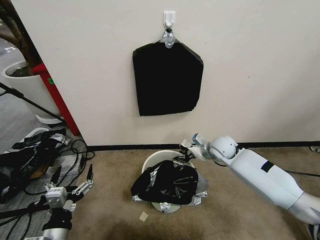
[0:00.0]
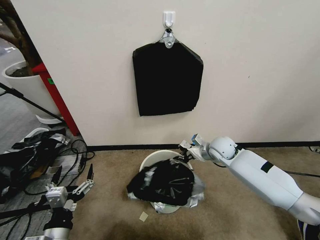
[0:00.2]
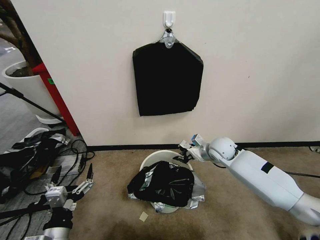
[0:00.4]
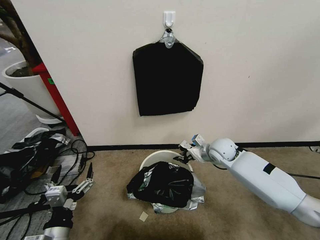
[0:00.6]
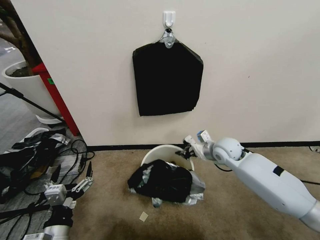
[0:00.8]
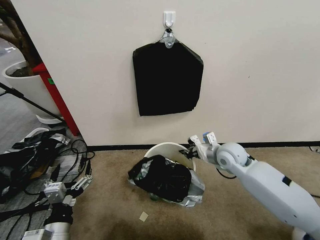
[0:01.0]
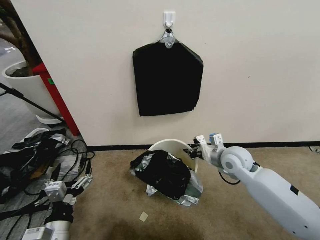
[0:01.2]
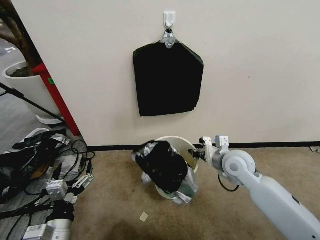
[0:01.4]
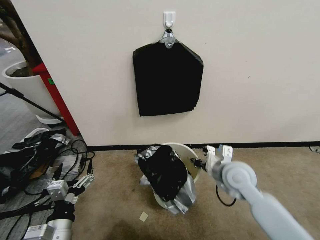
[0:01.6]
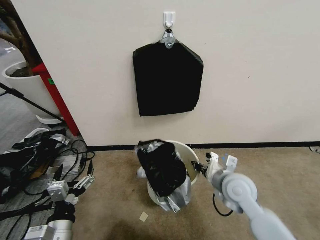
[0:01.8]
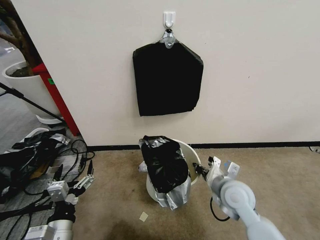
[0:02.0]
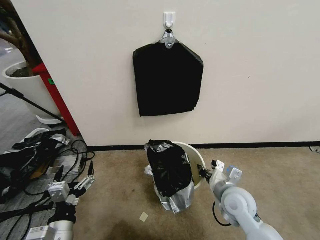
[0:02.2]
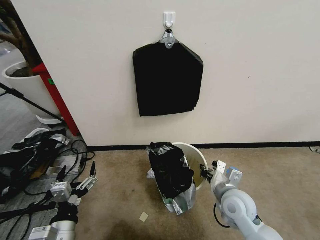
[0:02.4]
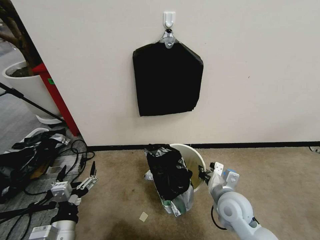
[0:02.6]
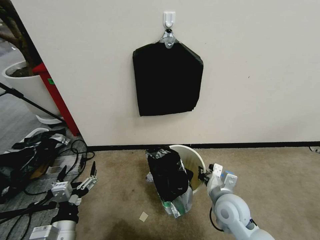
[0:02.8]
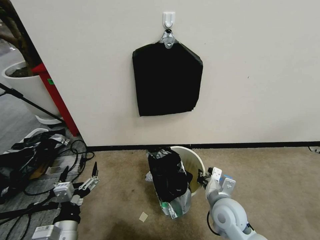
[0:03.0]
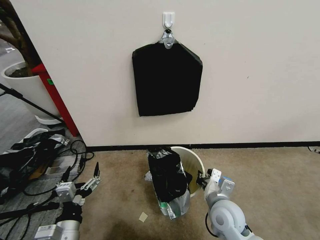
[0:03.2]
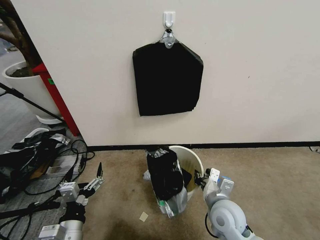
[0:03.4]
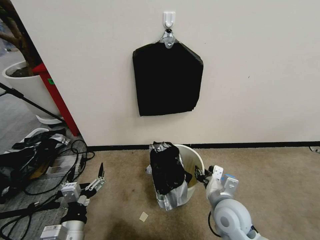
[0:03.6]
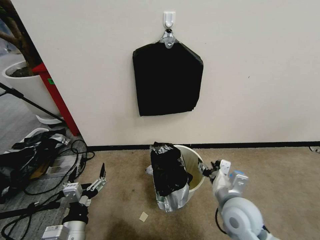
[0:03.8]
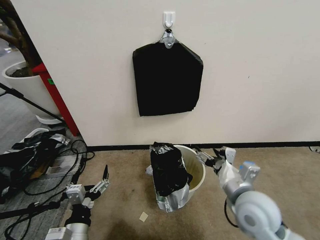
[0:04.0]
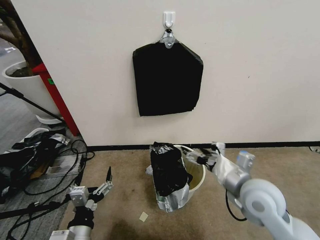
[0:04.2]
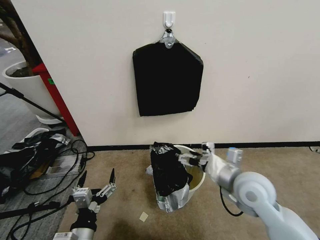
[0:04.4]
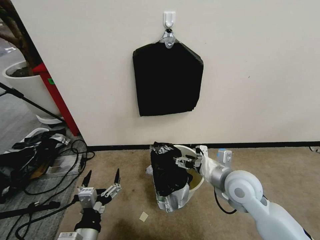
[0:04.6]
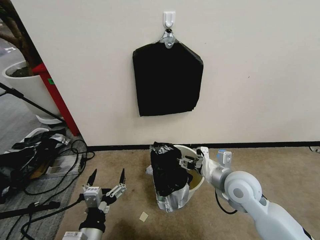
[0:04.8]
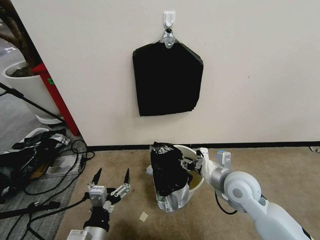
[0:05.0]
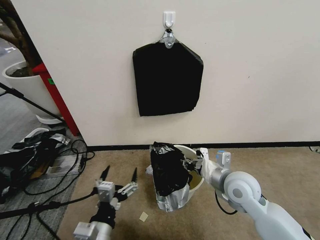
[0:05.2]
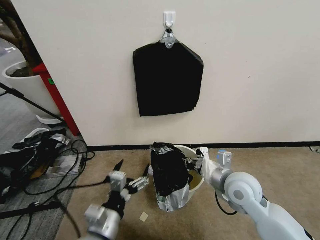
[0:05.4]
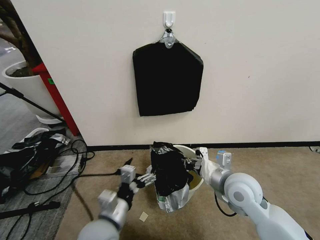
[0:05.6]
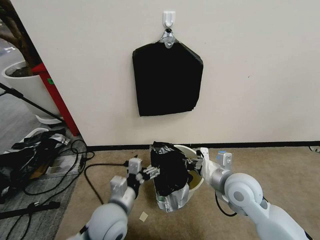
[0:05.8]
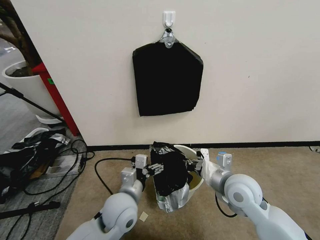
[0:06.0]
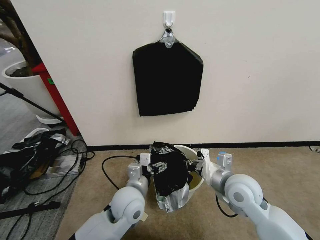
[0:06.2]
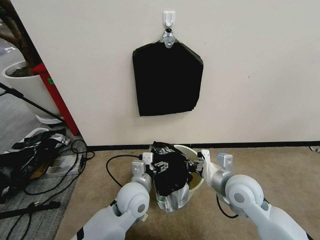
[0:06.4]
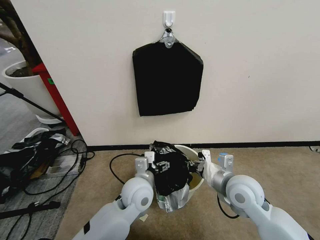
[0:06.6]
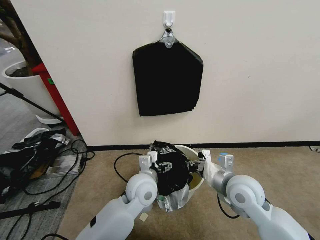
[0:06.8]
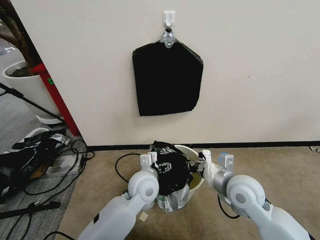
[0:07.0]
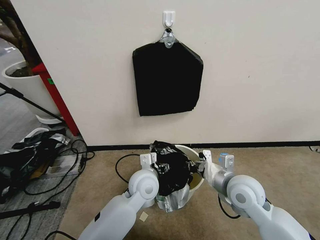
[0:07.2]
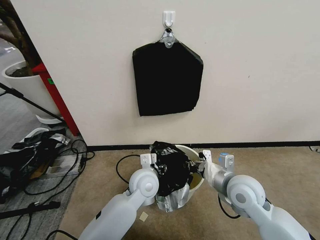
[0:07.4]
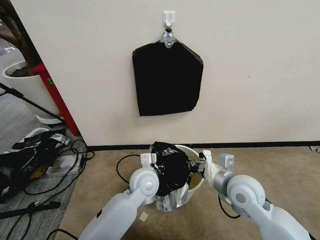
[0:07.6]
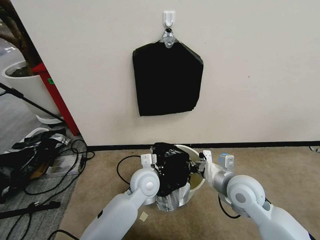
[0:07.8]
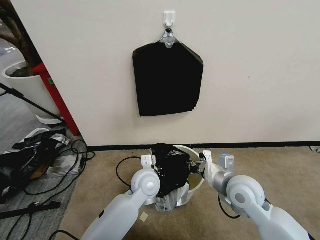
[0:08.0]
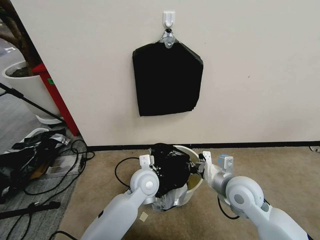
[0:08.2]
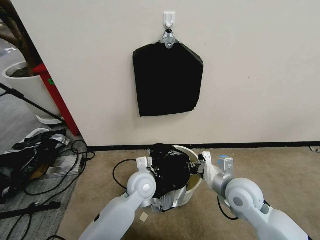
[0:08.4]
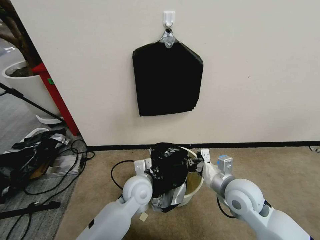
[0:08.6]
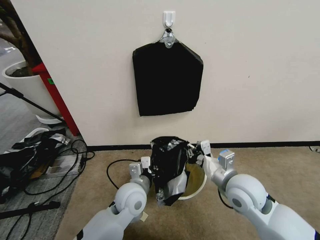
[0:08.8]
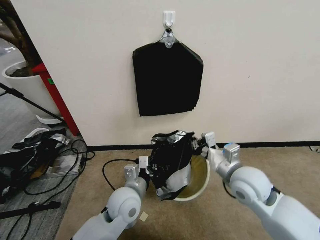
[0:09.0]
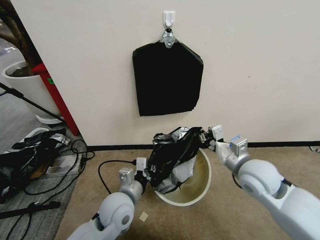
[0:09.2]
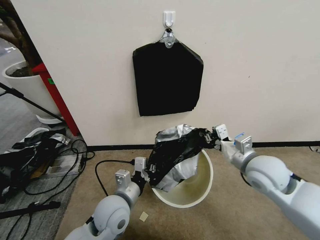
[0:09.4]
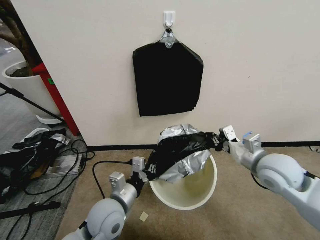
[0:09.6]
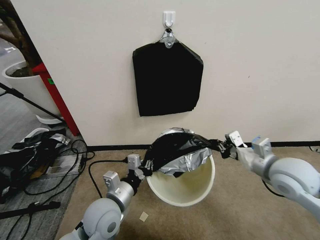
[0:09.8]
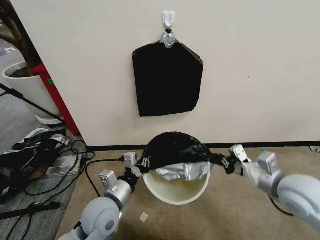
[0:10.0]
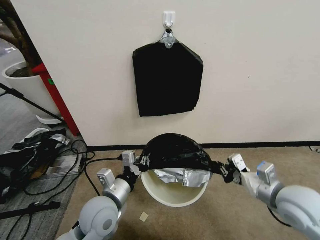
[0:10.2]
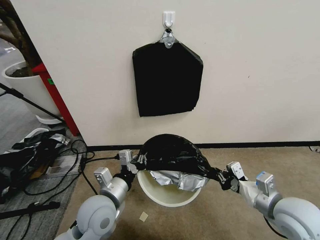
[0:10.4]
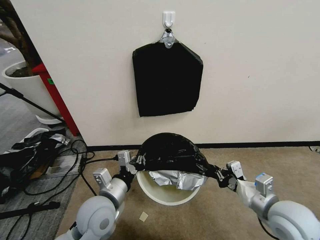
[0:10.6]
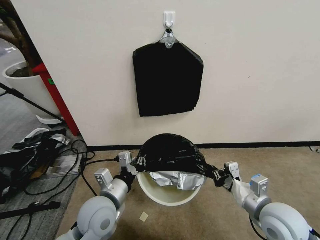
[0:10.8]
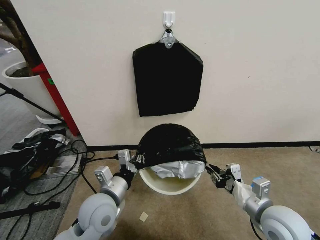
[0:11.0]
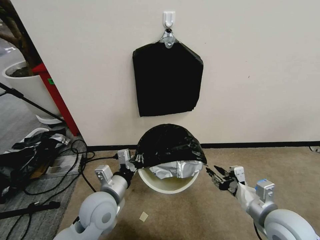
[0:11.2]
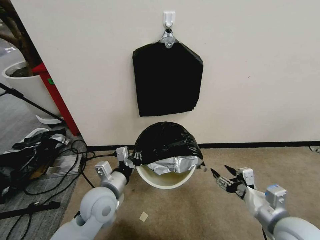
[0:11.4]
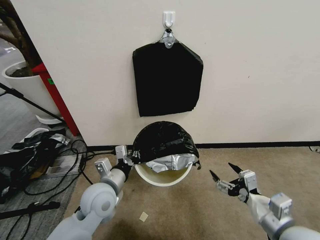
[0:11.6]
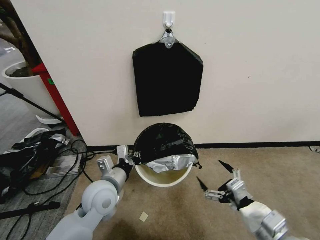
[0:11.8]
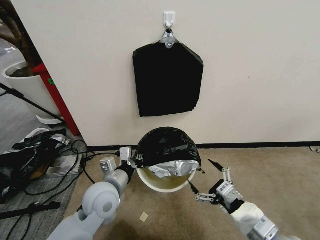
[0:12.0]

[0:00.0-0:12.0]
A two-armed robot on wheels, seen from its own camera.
Task of the whole recording: Place a trash bag onto the trash bin.
0.0 to 1.6 s: The right gripper is displaced backward by about 15 cm.
1.6 to 3.0 s: The right gripper heads downward and backward, covering about 10 cm.
3.0 to 4.4 s: The right gripper travels upward by some 10 cm, and opens.
4.4 to 6.0 s: The left gripper travels forward and to the right by approximately 20 cm. The right gripper closes.
6.0 to 7.6 s: The left gripper is displaced forward and to the right by approximately 10 cm, and closes its fingers.
7.6 to 9.0 s: The left gripper shifts roughly 10 cm backward and to the left, and closes its fingers.
9.0 to 10.4 s: The left gripper travels to the left by approximately 5 cm. Meanwhile the right gripper travels to the right and backward by approximately 10 cm.
10.4 to 12.0 s: The right gripper travels backward and to the left by approximately 10 cm, and opens its fingers.

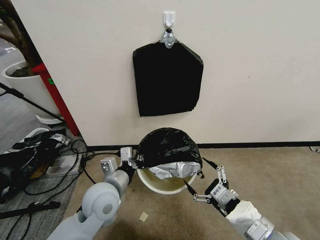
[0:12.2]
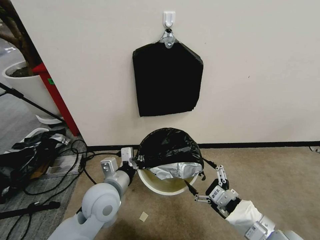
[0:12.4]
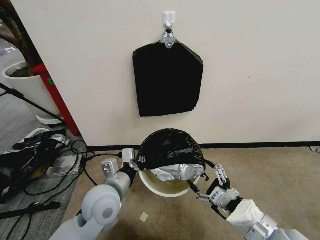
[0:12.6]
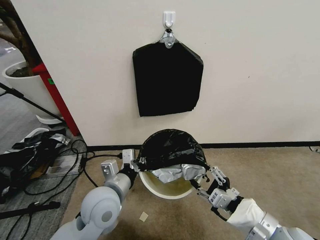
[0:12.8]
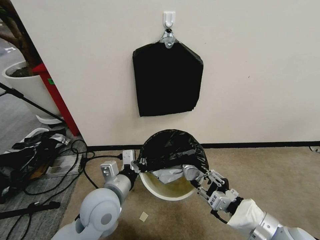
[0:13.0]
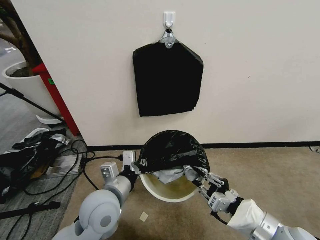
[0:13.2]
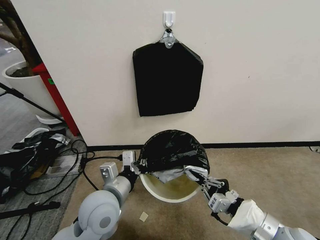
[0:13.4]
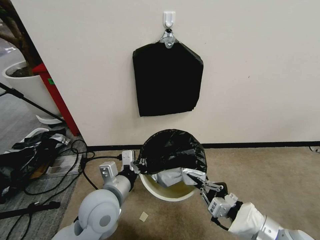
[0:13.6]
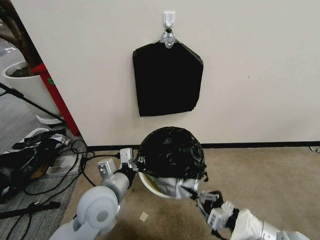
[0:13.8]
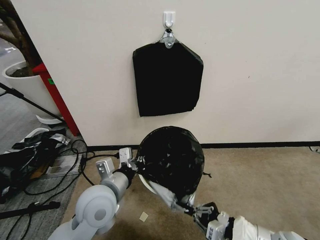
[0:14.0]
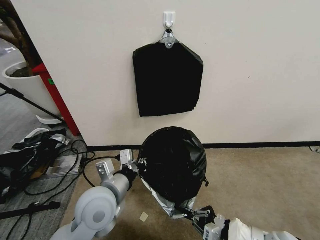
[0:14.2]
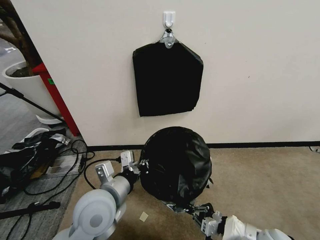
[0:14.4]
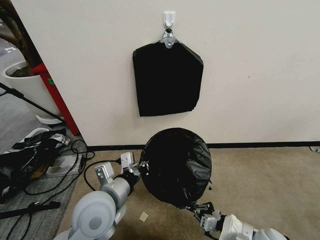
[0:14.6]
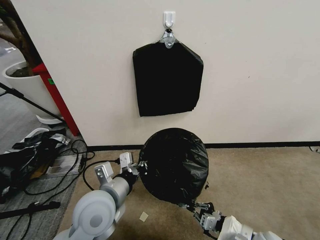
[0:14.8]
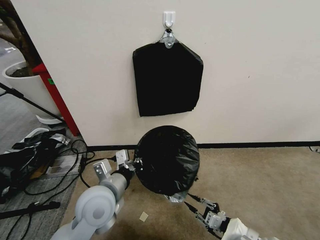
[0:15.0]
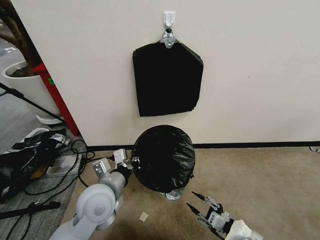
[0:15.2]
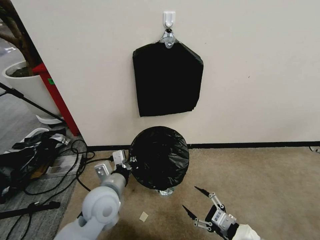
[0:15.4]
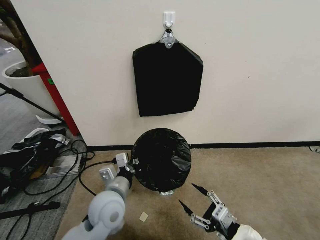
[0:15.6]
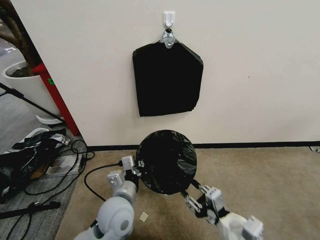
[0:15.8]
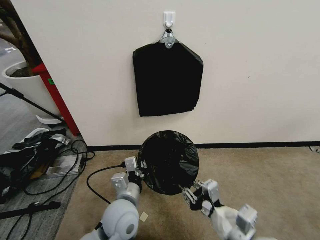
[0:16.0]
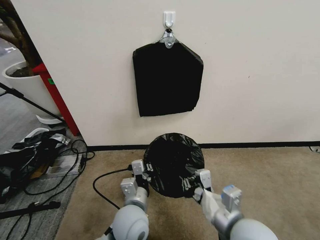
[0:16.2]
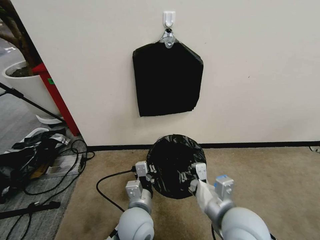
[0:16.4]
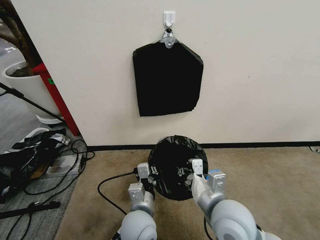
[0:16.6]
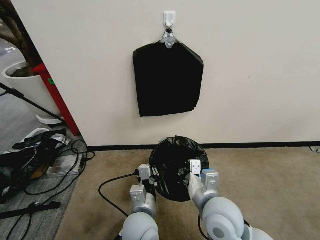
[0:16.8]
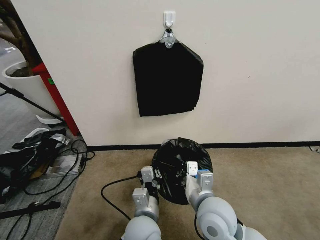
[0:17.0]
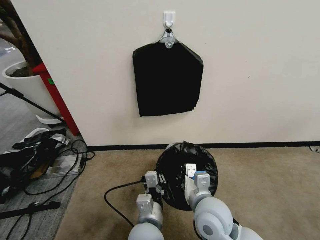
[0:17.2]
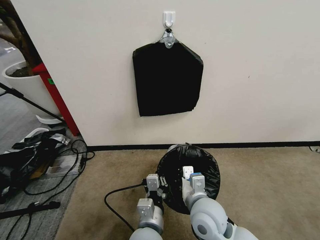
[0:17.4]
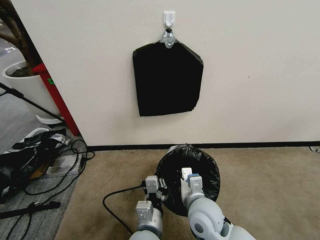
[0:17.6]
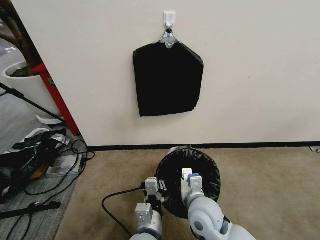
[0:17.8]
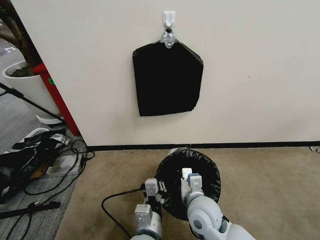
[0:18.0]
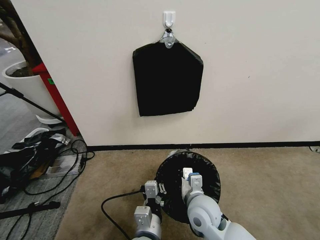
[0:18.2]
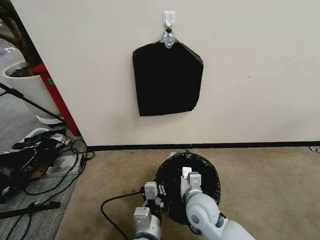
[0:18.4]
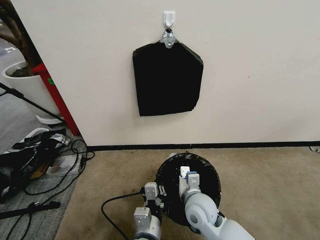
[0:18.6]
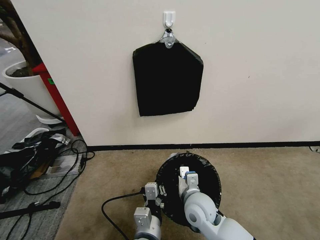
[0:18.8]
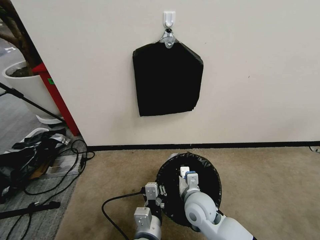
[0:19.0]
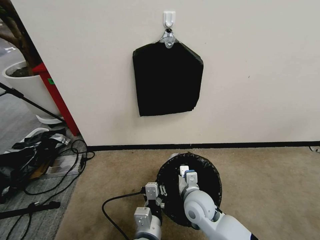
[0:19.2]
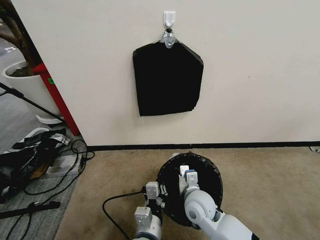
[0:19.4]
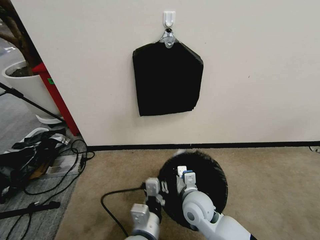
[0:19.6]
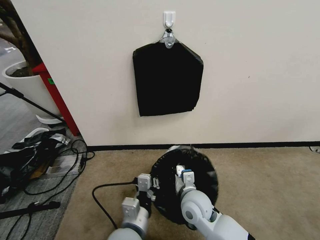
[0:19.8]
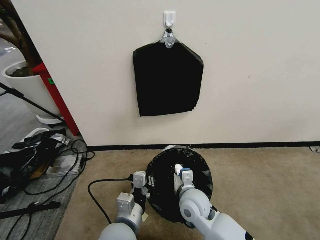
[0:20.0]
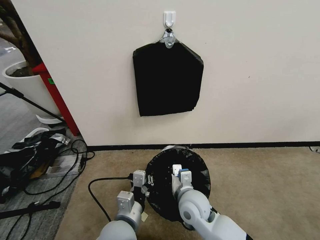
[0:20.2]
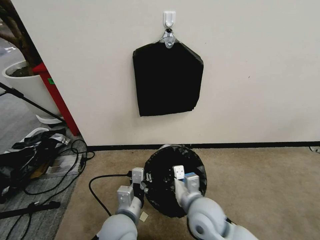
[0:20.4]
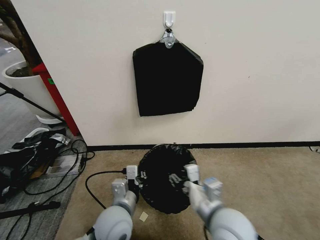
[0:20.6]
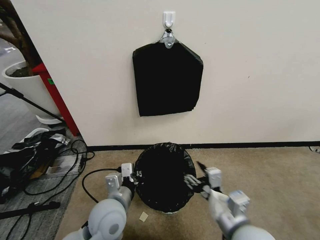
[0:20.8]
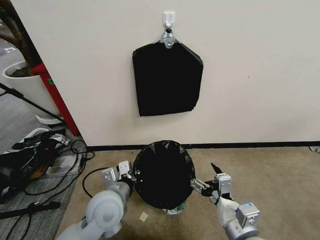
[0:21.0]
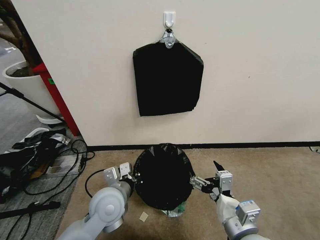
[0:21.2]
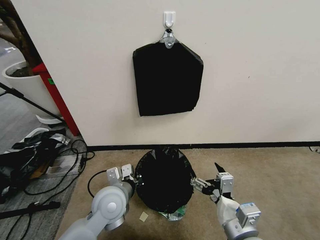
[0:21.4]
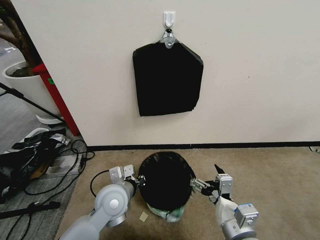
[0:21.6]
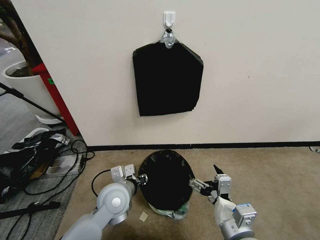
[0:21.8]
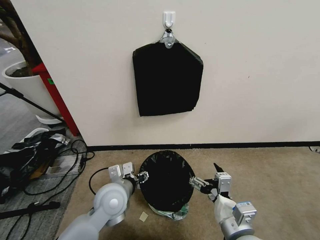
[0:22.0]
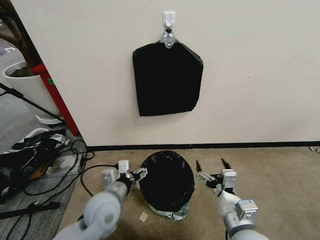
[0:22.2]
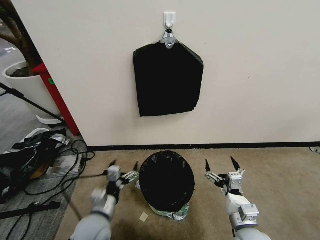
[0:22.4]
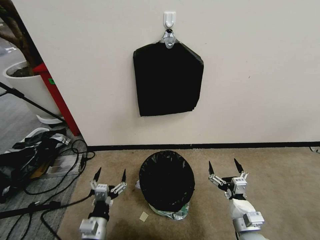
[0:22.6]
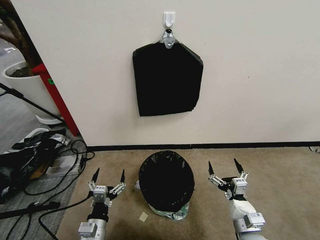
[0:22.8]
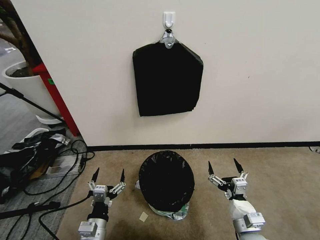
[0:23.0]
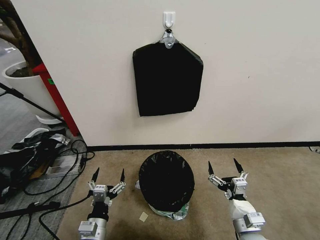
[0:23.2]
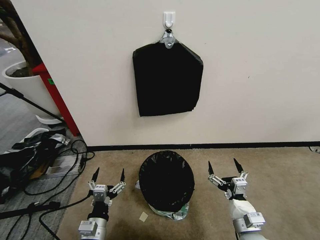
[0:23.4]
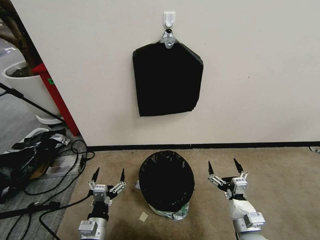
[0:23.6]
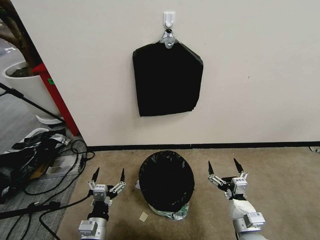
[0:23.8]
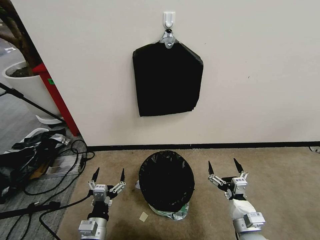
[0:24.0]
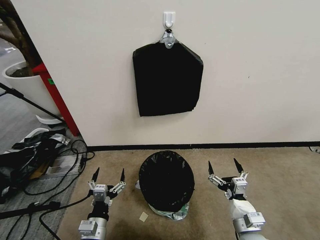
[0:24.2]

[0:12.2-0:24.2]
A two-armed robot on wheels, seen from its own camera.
Task of the whole recording: Place a trash bag onto the trash bin.
12.2 to 13.8 s: The right gripper closes up.
13.8 to 15.2 s: The right gripper moves downward, about 10 cm, and opens its fingers.
15.2 to 16.6 s: The left gripper travels to the right and downward by about 15 cm. The right gripper moves to the left and upward, approximately 20 cm, and closes up.
16.6 to 18.2 s: The left gripper moves backward, some 5 cm. The right gripper heads downward, covering approximately 10 cm.
18.2 to 19.8 s: The left gripper is displaced to the left by some 5 cm.
19.8 to 21.2 s: The right gripper travels backward, to the right and upward by about 20 cm, and opens its fingers. The left gripper moves forward and to the left, about 10 cm.
21.2 to 22.6 s: The left gripper heads downward, backward and to the left, covering some 15 cm, and opens its fingers. Meanwhile the right gripper travels downward and to the right by roughly 15 cm.
22.6 to 24.2 s: Both grippers stay put.
